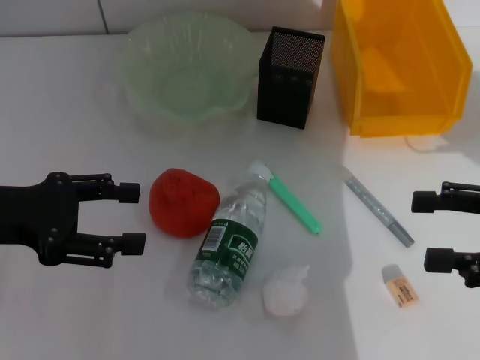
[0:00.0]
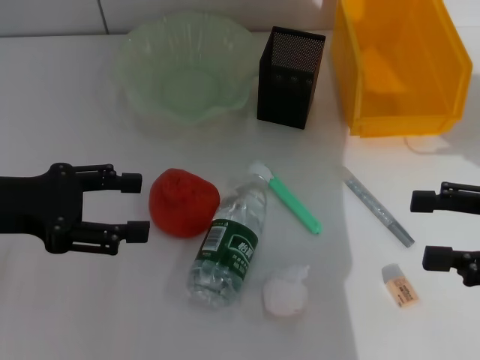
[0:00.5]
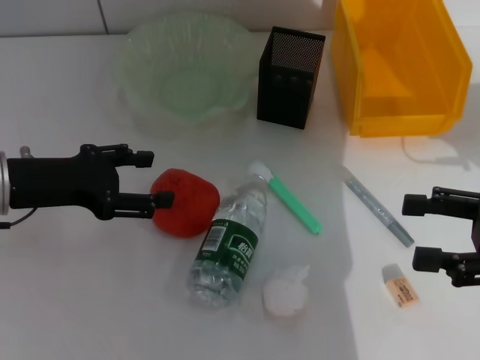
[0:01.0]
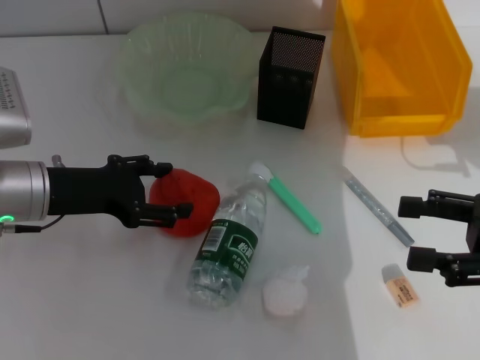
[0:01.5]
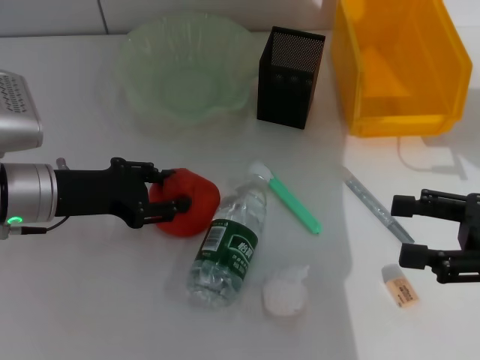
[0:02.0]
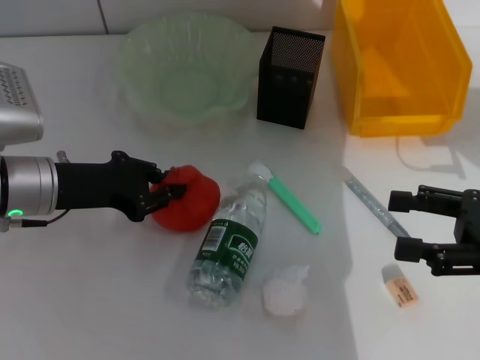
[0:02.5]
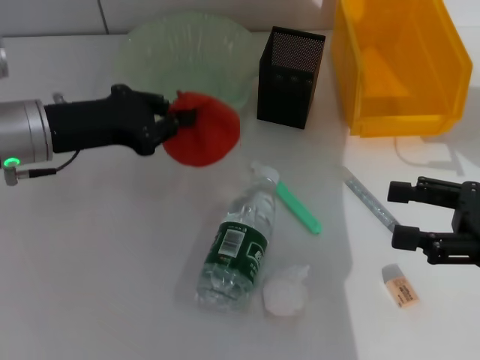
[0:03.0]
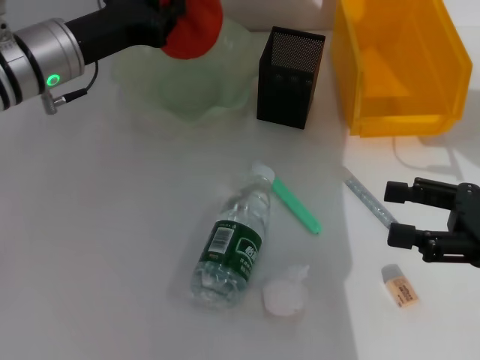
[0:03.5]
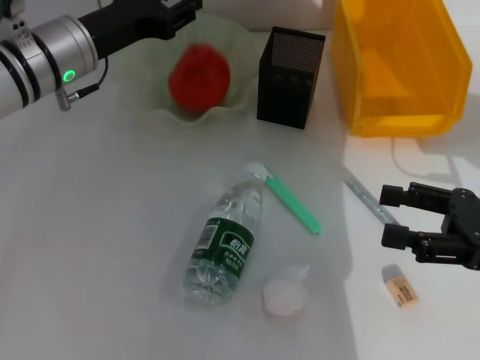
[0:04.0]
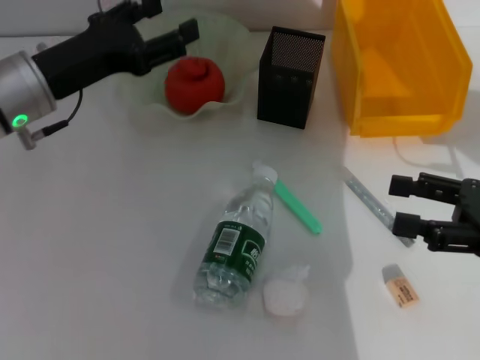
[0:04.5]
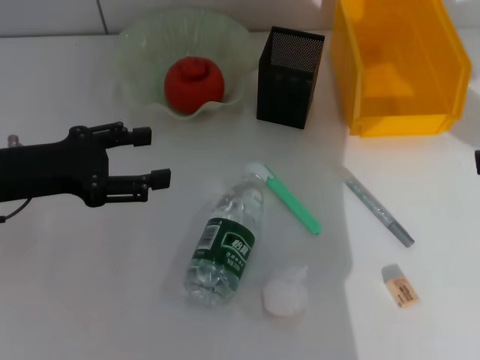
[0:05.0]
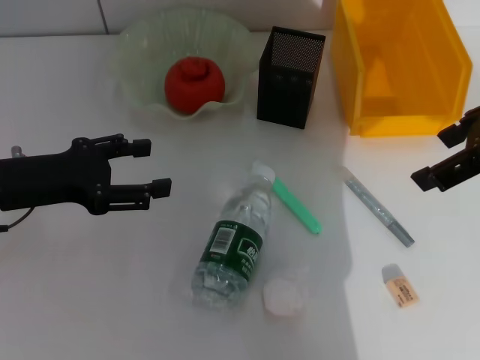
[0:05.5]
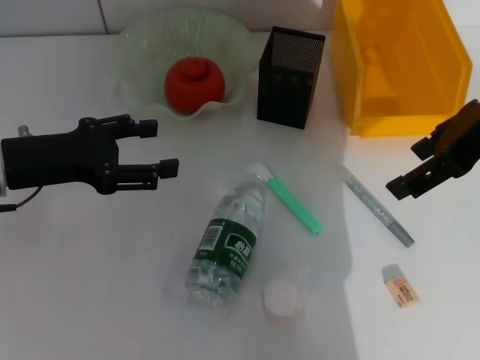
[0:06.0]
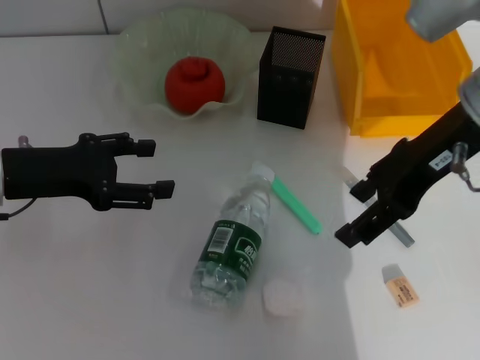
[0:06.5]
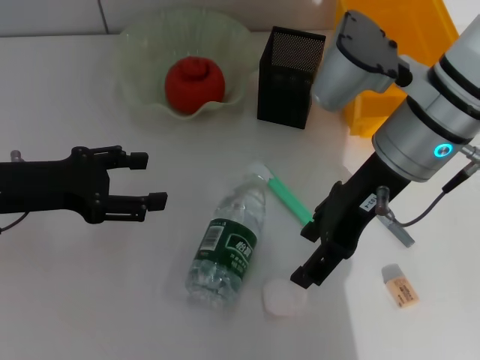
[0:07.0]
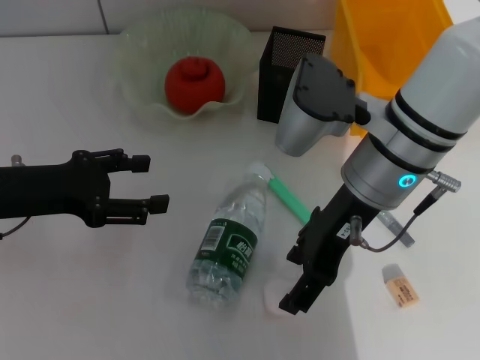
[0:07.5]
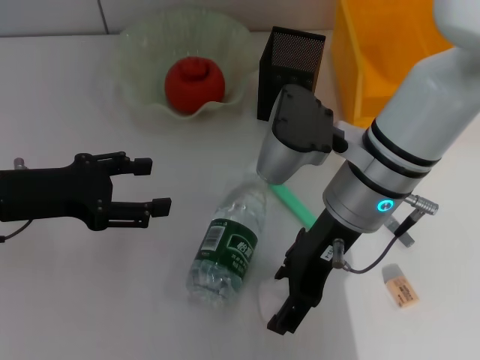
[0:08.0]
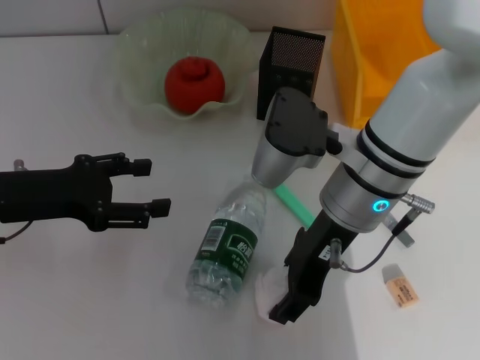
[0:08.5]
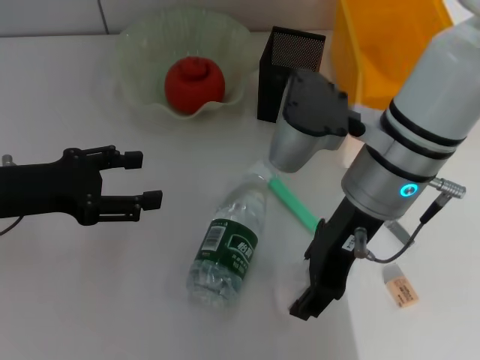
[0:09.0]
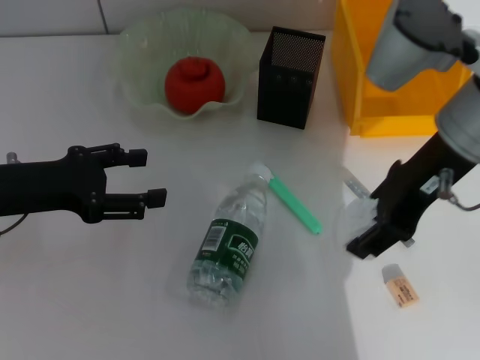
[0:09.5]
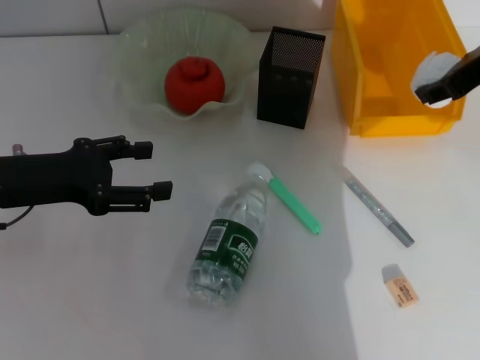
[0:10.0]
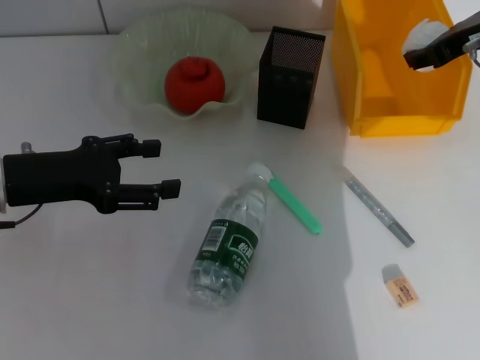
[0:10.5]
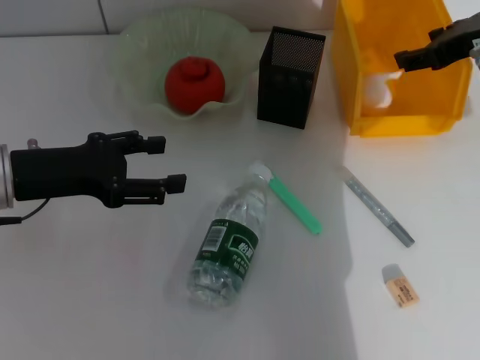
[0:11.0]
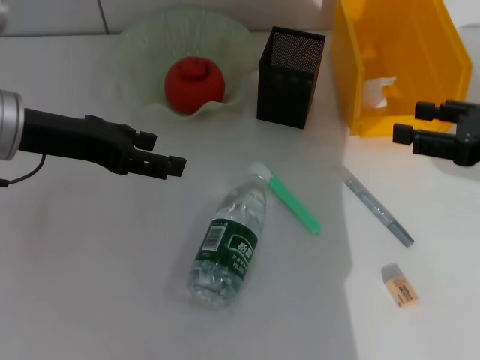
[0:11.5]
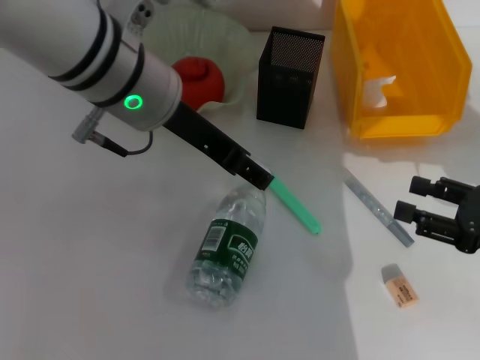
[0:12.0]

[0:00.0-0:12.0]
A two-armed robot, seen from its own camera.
Step, 0:00.0 to 0:02.0: Grab the orange with the left hand.
Step, 0:02.5 to 0:04.0: Place the orange into the fruit bowl with the left hand.
Step, 0:04.5 to 0:08.5: Grab the paper ball with the right hand.
Step, 0:09.0 to 0:11.0: Place the paper ball into the trash can with the right hand.
0:00.0 to 0:02.0: The left gripper goes roughly 10 cm downward and to the right.
0:02.0 to 0:04.0: The left gripper moves forward and upward, approximately 10 cm, and closes its fingers.
0:04.0 to 0:06.0: The left gripper heads backward and to the left, covering about 10 cm, and opens its fingers. The right gripper moves upward, forward and to the left, approximately 20 cm.
0:06.0 to 0:08.0: The right gripper travels to the left and downward by about 20 cm.
0:08.0 to 0:10.0: The right gripper is displaced to the right and upward by approximately 20 cm.
0:10.0 to 0:12.0: The right gripper goes about 25 cm downward, backward and to the right. The left gripper moves to the right and upward, about 20 cm.

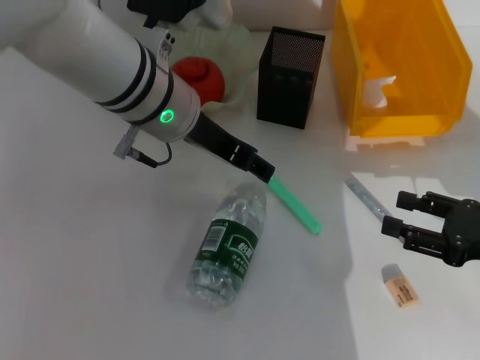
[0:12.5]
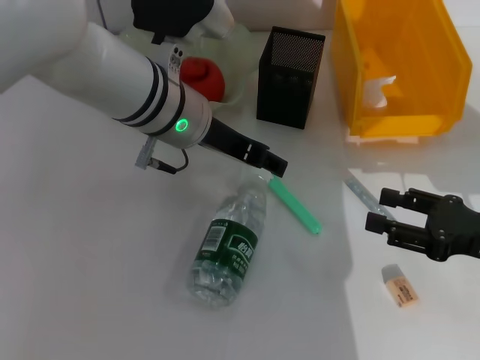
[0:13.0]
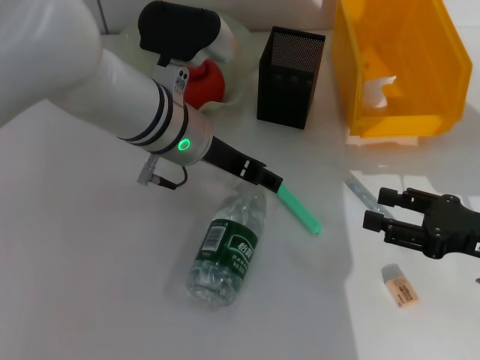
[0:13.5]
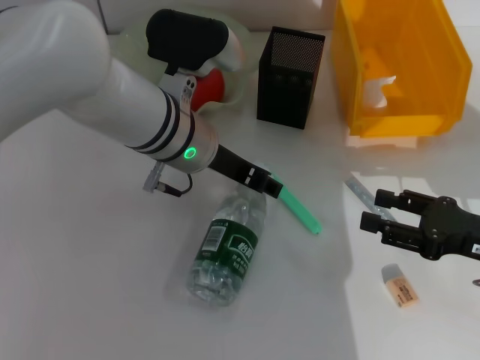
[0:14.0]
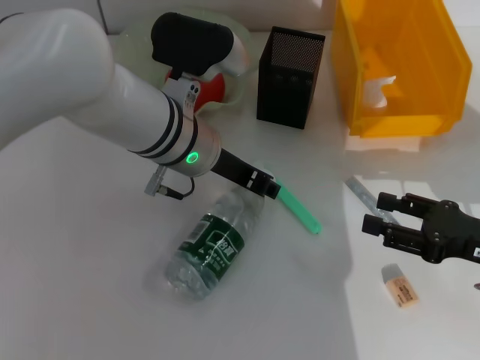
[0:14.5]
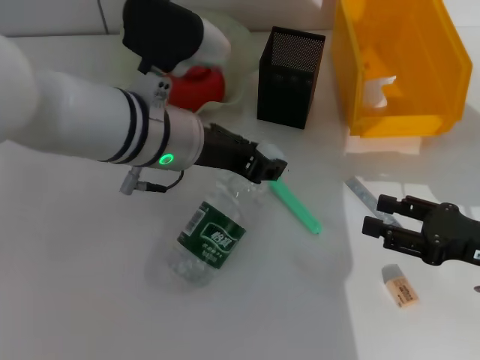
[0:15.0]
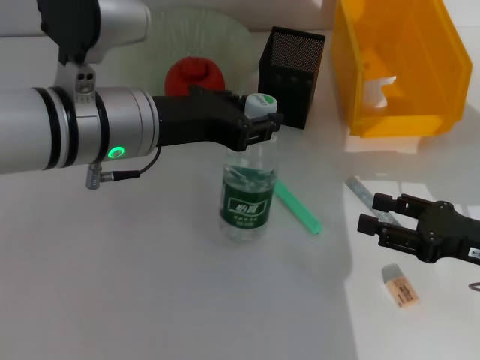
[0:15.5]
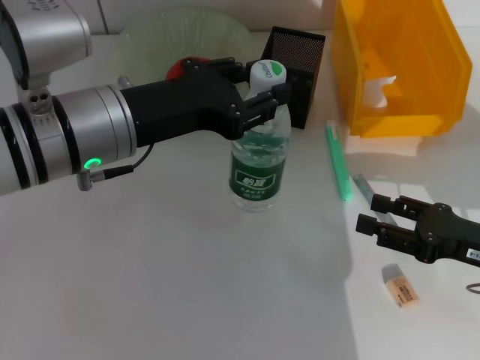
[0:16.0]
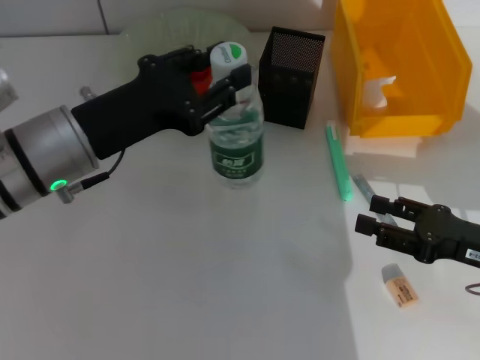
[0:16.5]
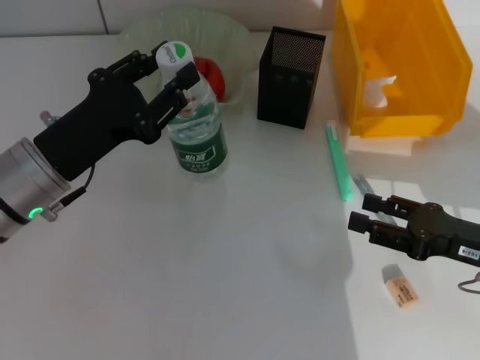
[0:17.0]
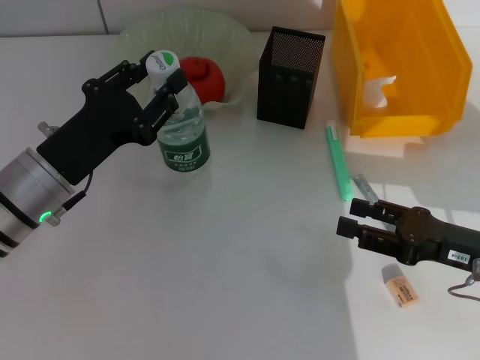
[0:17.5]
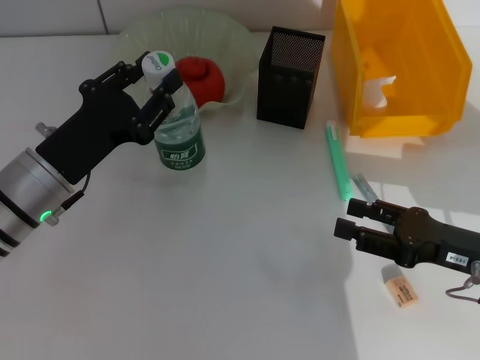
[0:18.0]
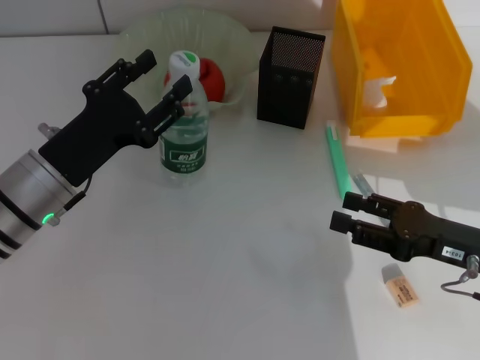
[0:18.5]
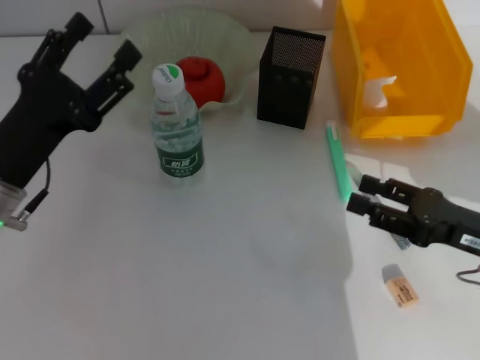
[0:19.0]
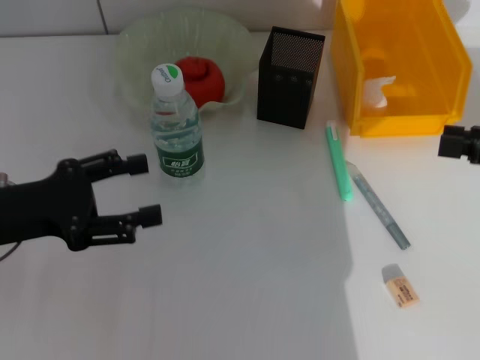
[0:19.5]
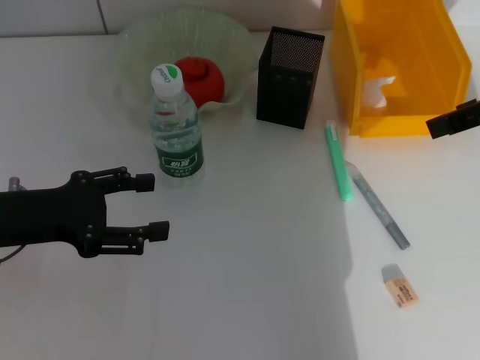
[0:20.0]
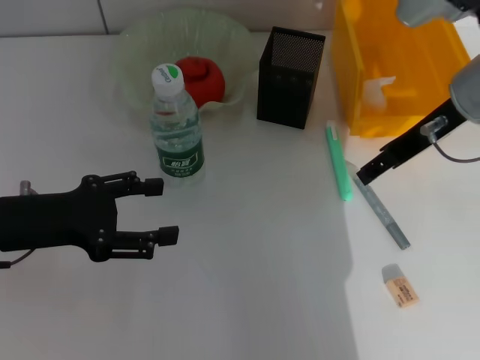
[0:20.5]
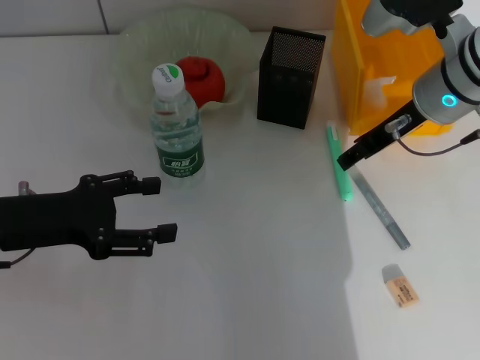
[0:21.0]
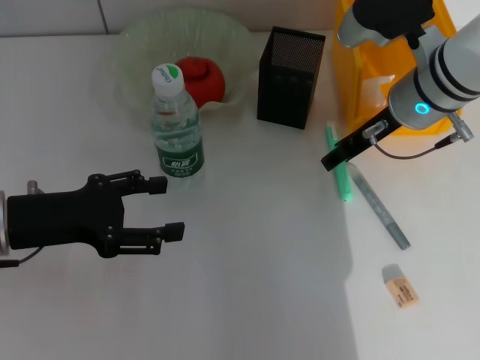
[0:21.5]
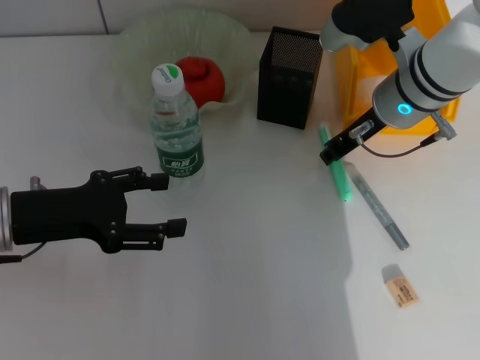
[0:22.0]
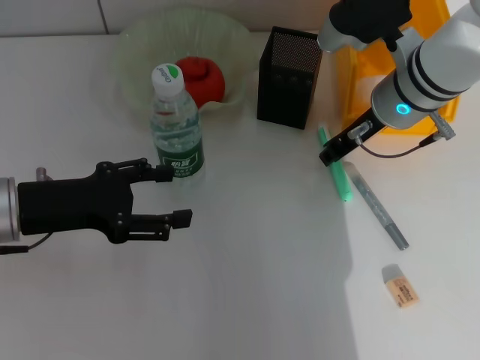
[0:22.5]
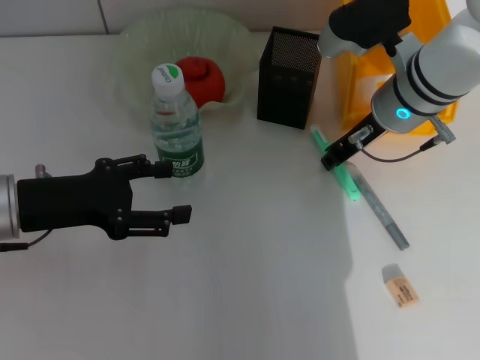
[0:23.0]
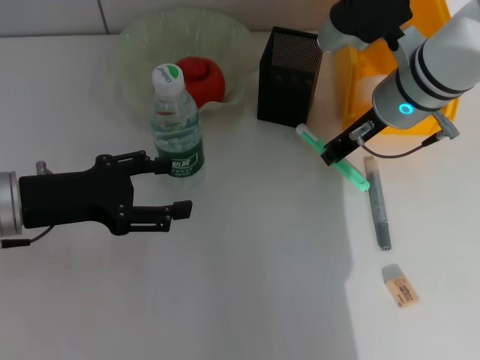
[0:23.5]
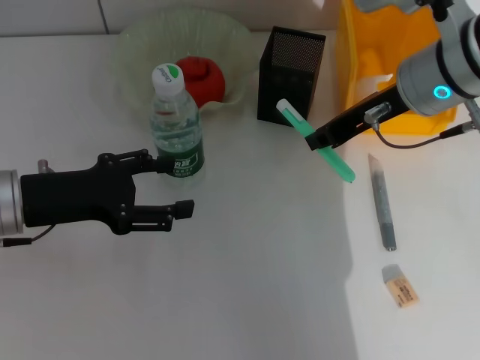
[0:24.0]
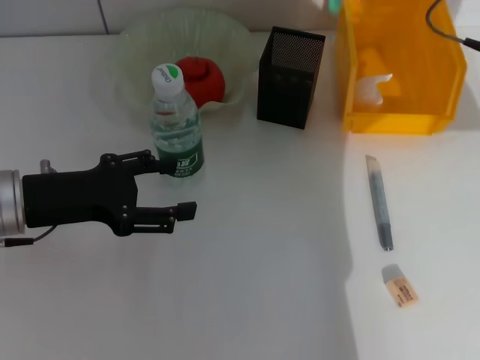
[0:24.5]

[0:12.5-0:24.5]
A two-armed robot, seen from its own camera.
Step, 0:12.5 to 0:14.0: Grab the water bottle with the left hand.
Step, 0:14.5 to 0:19.0: Place the water bottle on the table with the left hand.
Step, 0:19.5 to 0:23.0: Grab the blue utility knife with the right hand.
0:12.5 to 0:14.5: The left gripper travels downward by approximately 5 cm, and closes.
0:14.5 to 0:16.5: The left gripper shifts roughly 15 cm to the left and backward.
0:16.5 to 0:18.5: The left gripper moves downward, roughly 5 cm.
0:18.5 to 0:20.5: The right gripper heads upward, forward and to the left, covering about 20 cm; the left gripper is displaced to the left by about 5 cm, and opens its fingers.
0:20.5 to 0:22.5: The right gripper goes roughly 10 cm downward and to the left, and closes up.
0:22.5 to 0:24.5: The right gripper moves to the right and upward, approximately 10 cm.

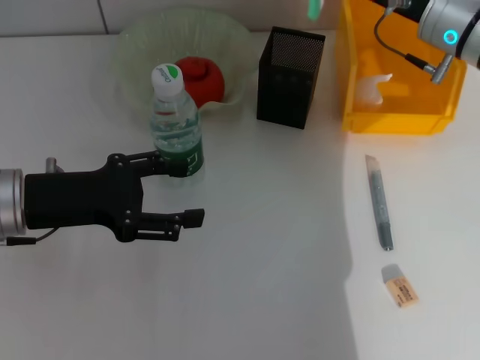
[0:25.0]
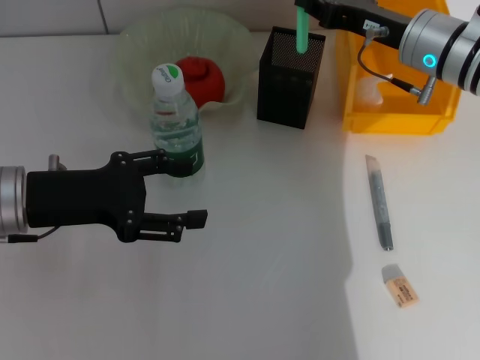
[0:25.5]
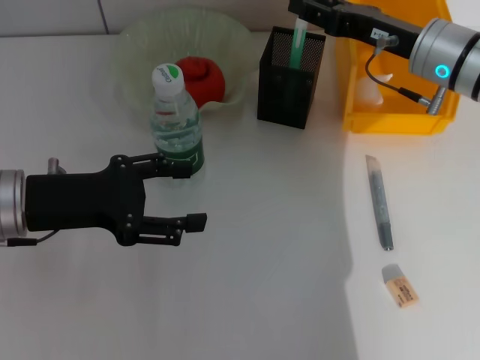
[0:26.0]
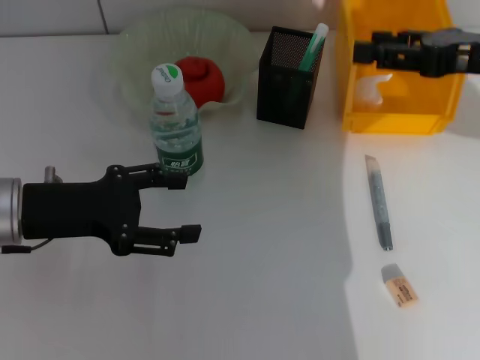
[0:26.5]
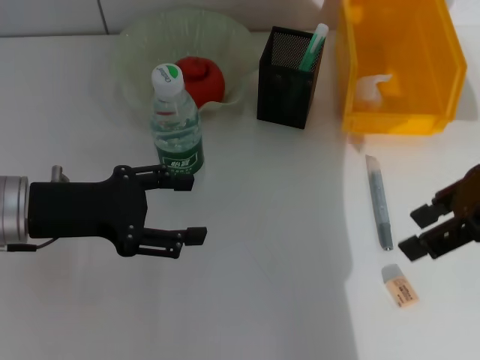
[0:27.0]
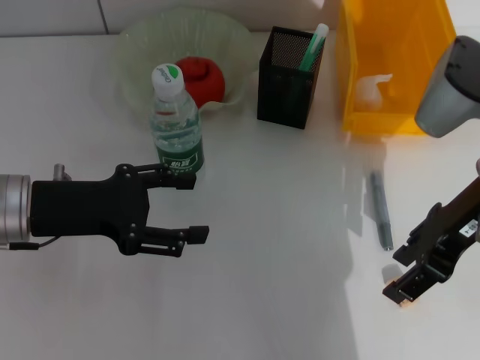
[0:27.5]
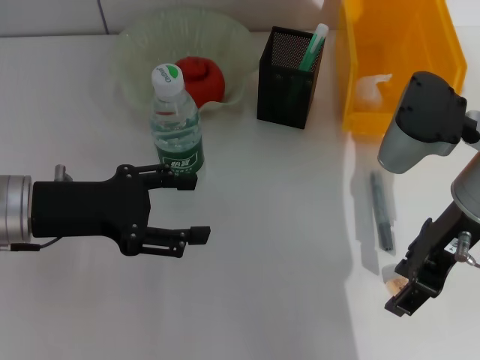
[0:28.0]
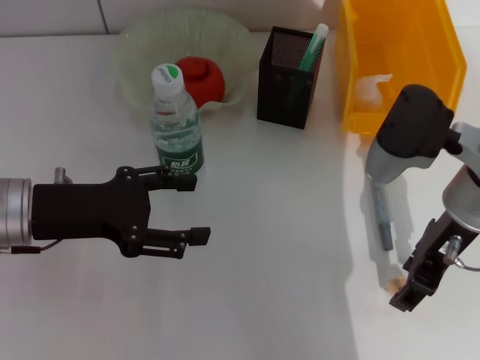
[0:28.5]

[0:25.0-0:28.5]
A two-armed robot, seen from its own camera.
0:25.0 to 0:27.0: The right gripper heads backward and upward, covering roughly 15 cm, and opens its fingers.
0:27.0 to 0:28.5: The right gripper moves downward and to the left, approximately 10 cm.
